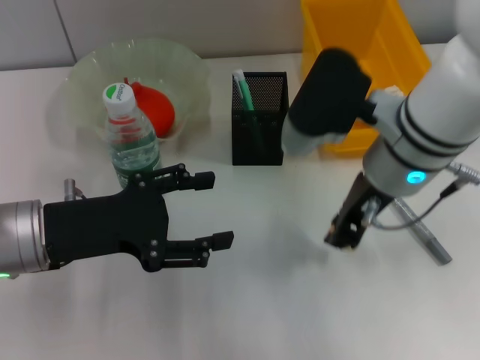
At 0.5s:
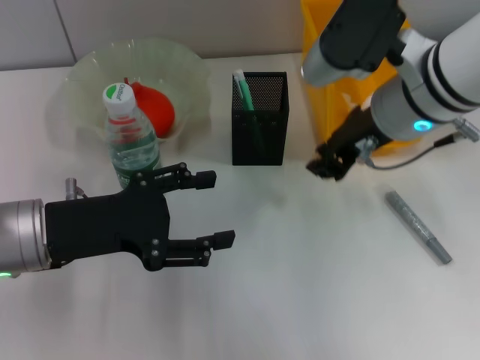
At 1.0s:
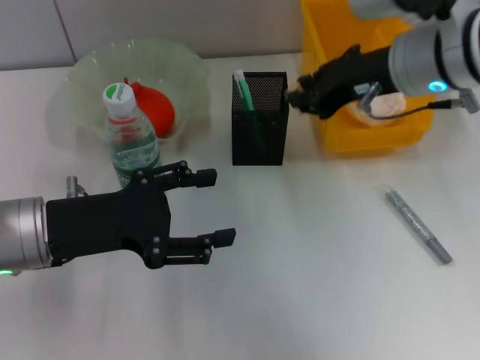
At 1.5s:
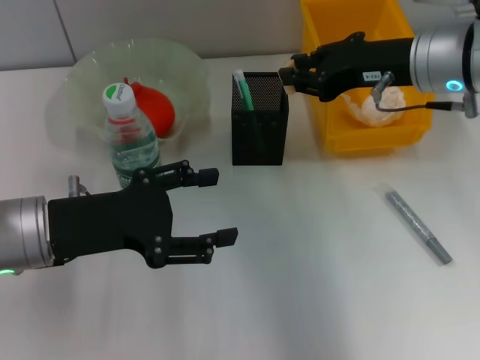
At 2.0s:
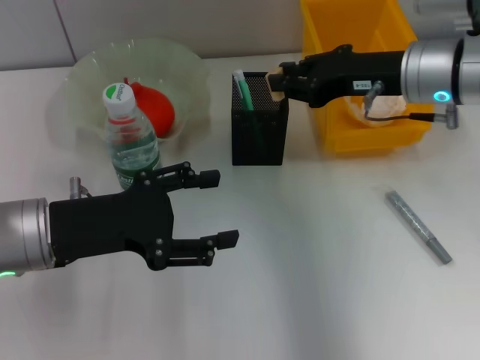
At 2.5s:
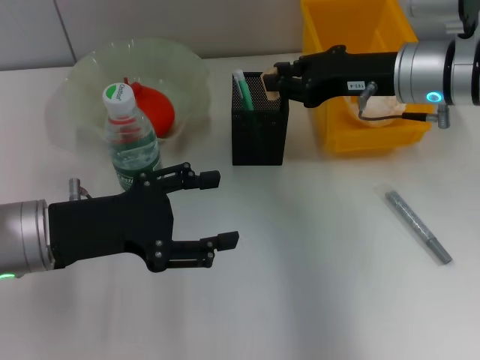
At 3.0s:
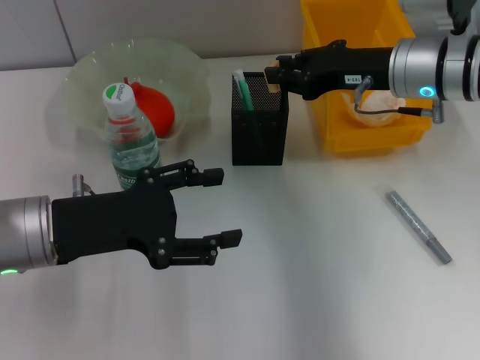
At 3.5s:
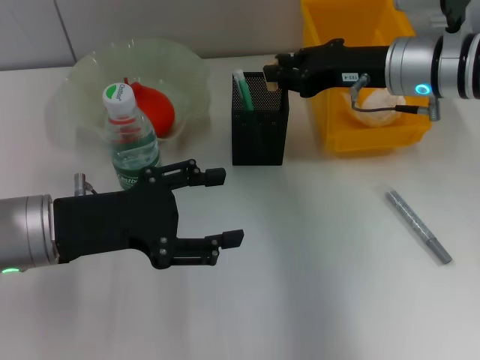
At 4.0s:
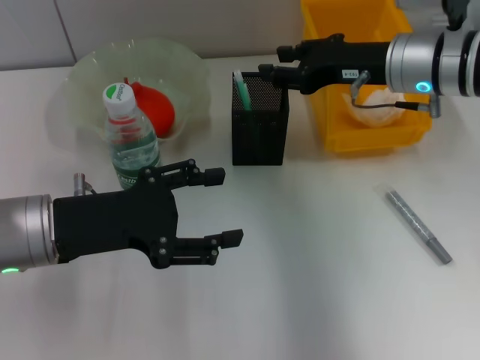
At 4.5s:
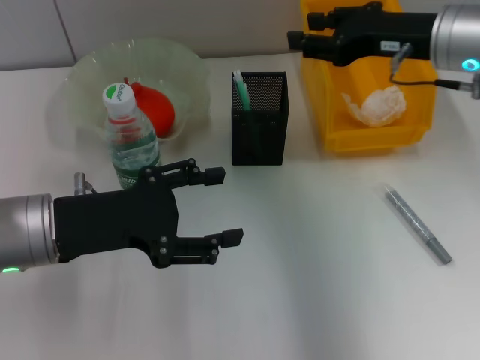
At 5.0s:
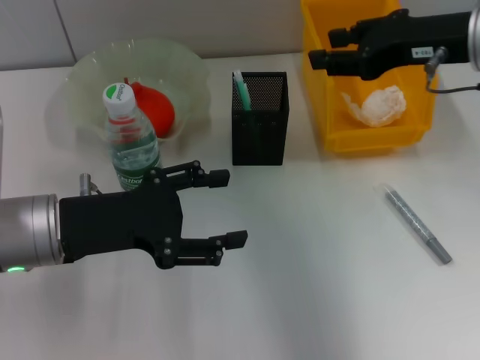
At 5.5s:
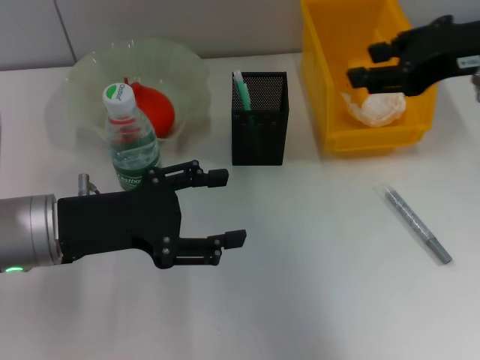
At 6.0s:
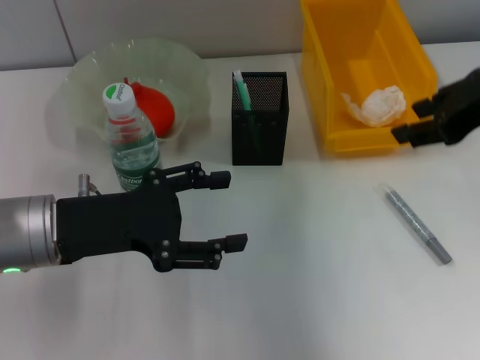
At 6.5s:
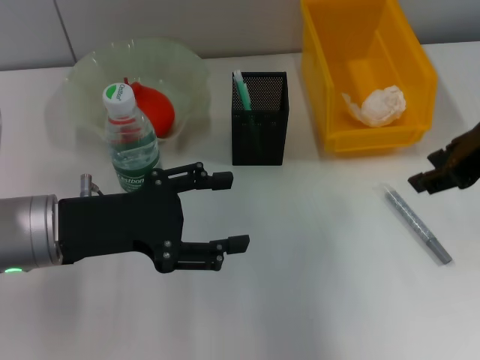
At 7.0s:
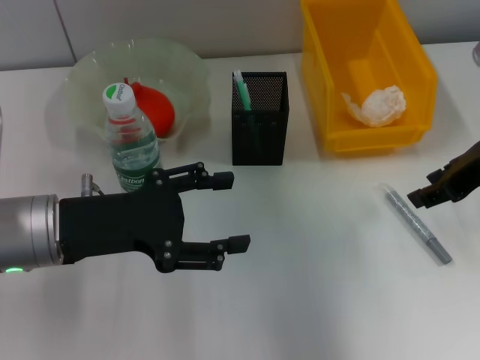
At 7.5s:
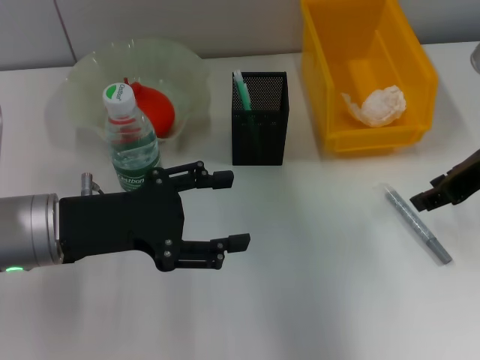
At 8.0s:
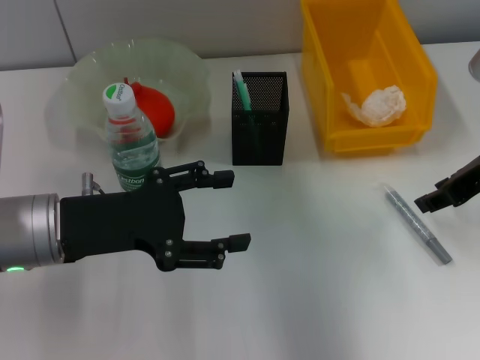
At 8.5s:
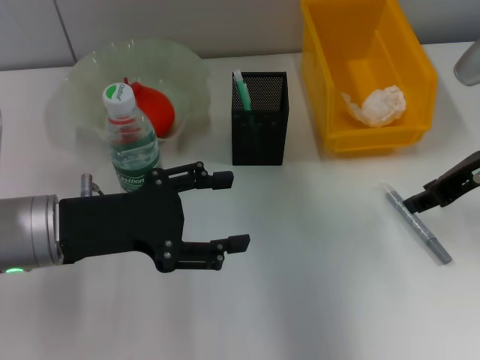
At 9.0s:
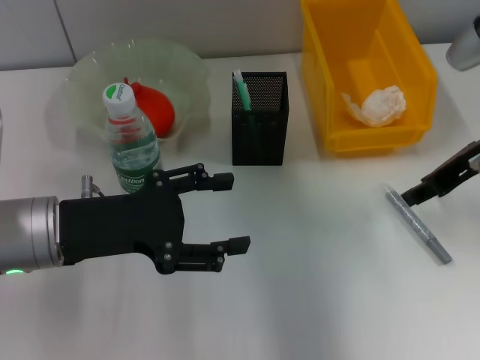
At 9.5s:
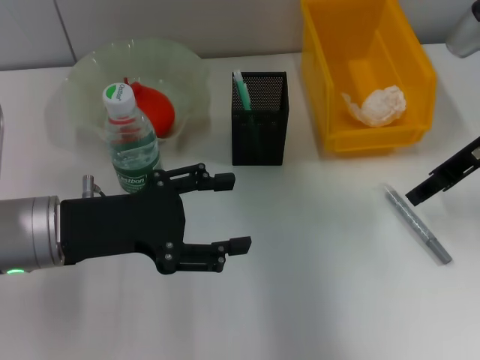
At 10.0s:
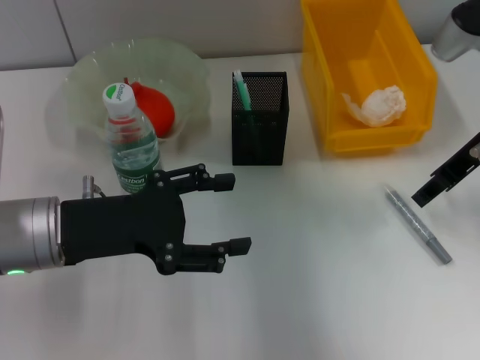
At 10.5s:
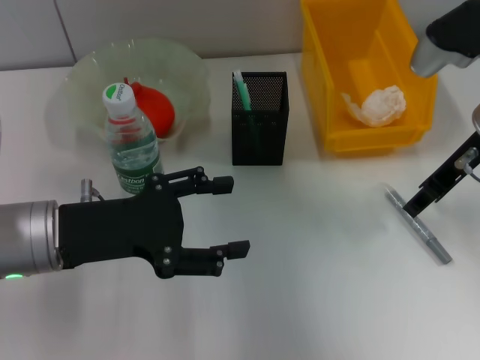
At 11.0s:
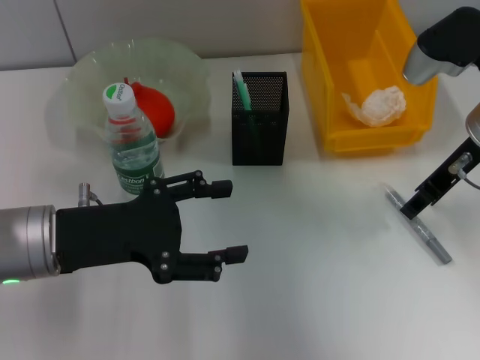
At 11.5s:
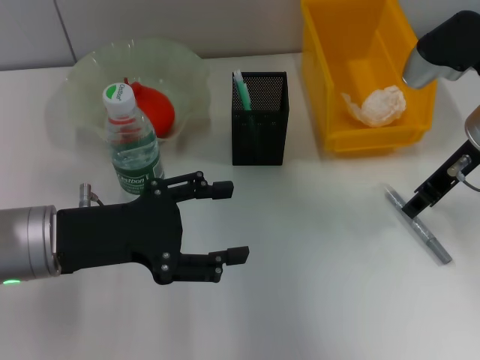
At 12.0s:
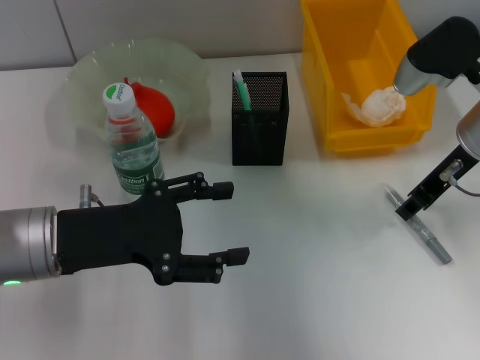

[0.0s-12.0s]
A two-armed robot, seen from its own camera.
Step, 0.0s to 3.5s: Put the eraser into the pen holder with the right hand.
0.0s to 2.0s: The right gripper moves to the right and forward, roughly 10 cm.
2.0s to 4.0s: There are only small adjustments of the grippers.
4.0s to 6.0s: The right gripper moves backward, upward and to the right, some 15 cm.
6.0s to 8.0s: The right gripper moves downward, approximately 10 cm.
8.0s to 12.0s: There are only small adjustments of the grippers.

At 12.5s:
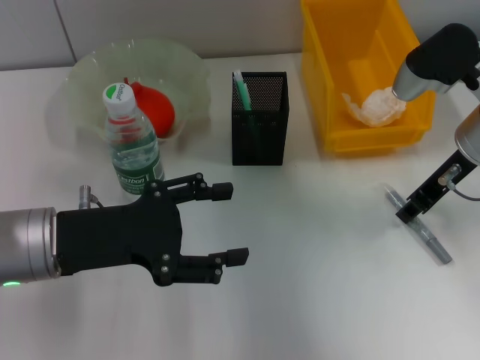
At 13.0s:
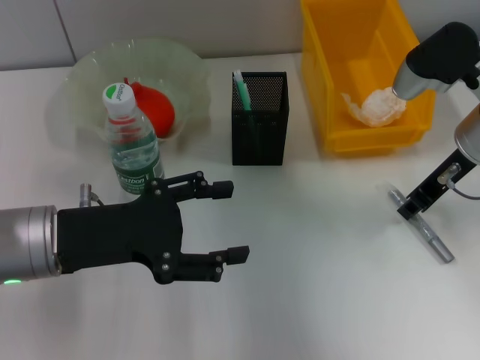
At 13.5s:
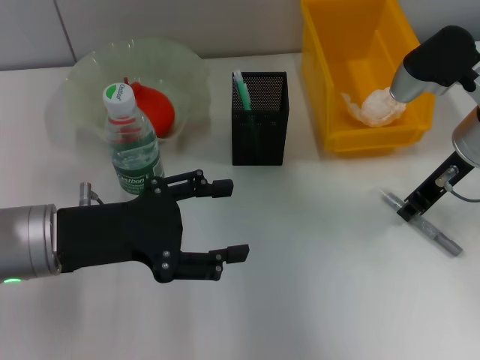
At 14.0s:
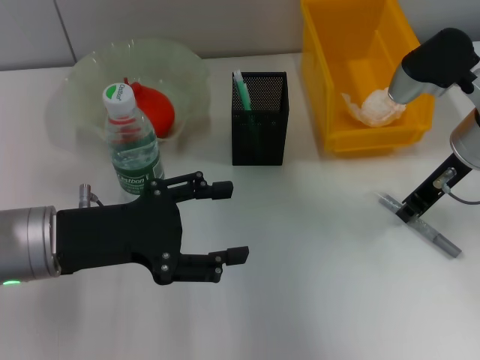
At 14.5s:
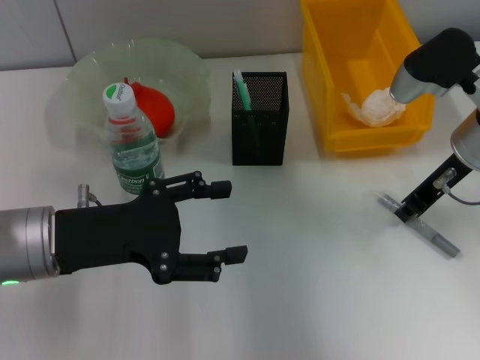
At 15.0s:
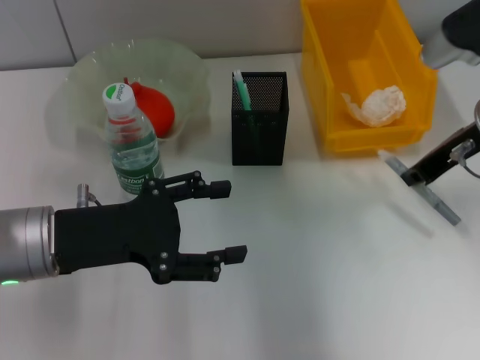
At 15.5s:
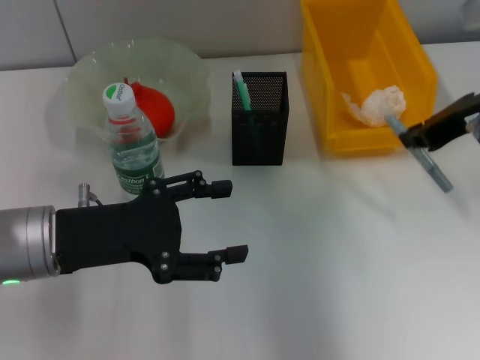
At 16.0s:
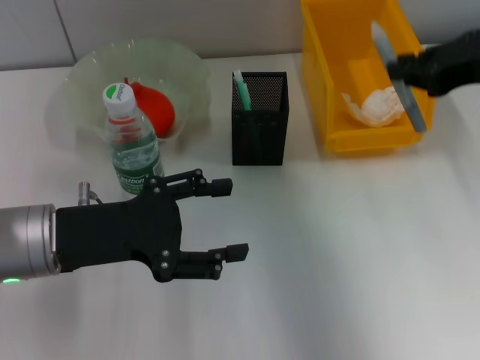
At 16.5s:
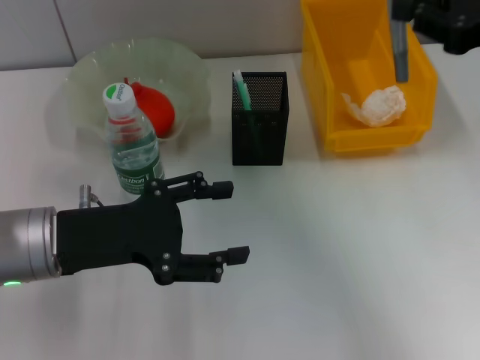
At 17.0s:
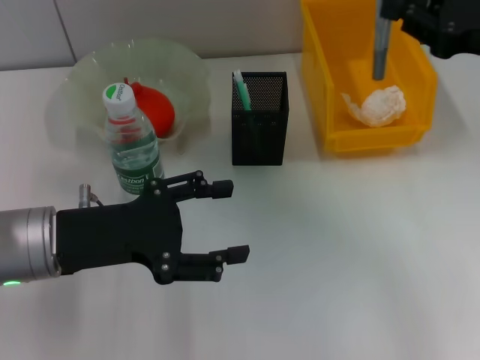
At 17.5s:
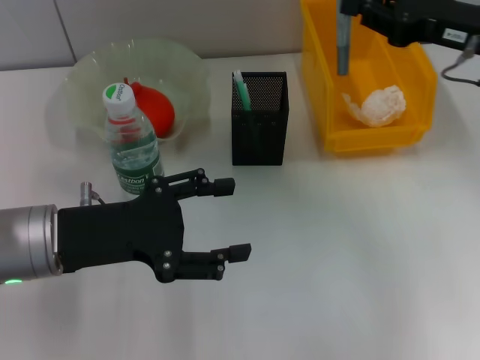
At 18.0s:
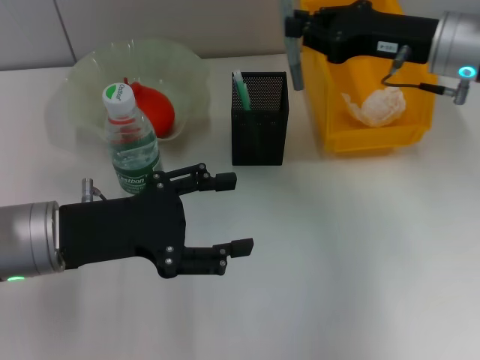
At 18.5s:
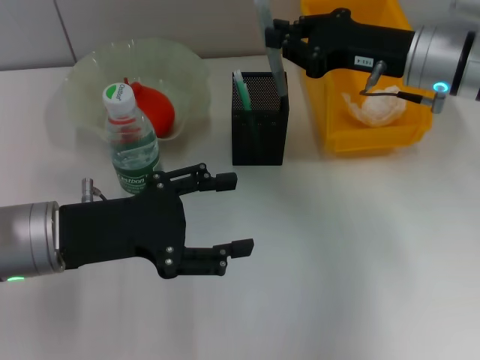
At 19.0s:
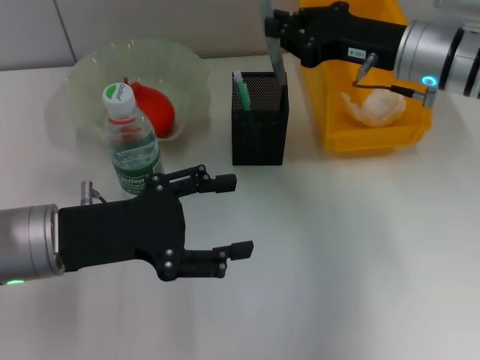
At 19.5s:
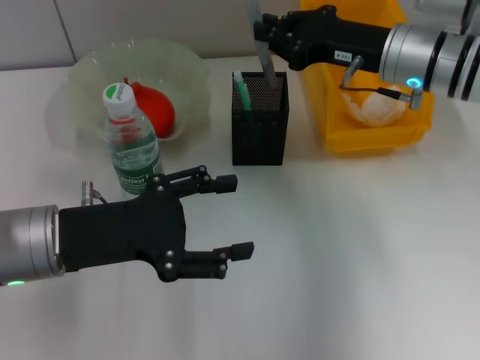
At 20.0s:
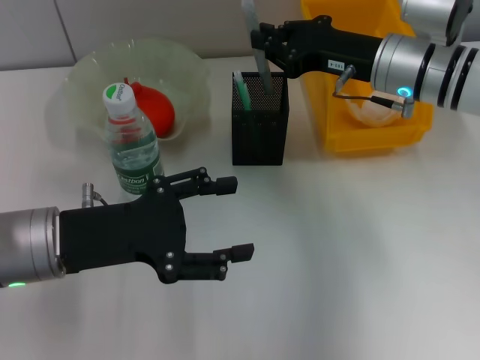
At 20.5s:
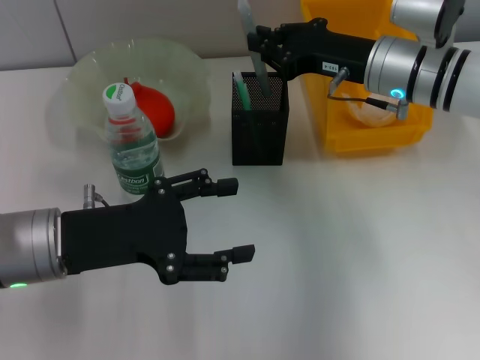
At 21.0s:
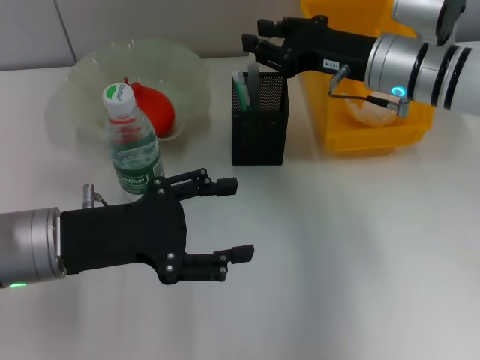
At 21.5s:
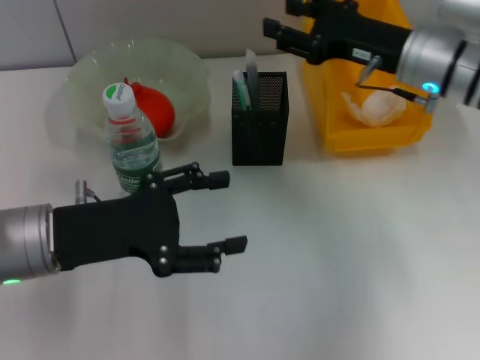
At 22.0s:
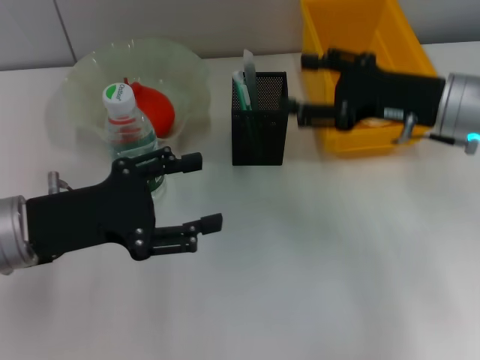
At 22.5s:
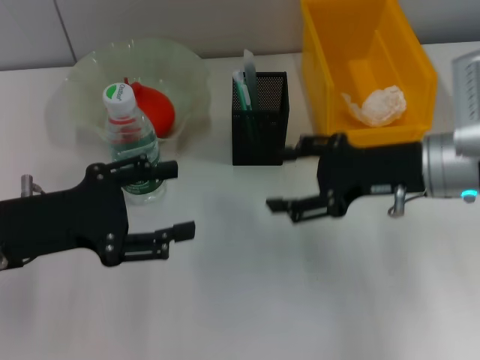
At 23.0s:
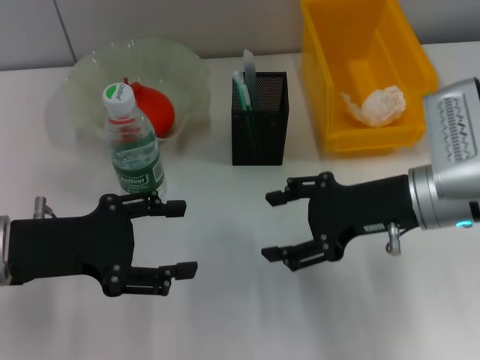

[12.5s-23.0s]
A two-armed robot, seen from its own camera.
Step, 14.5s to 21.0s: Place the gray glue into the pen holder with the right hand.
12.5s to 14.5s: The right gripper closes.
14.5s to 16.5s: The right gripper shifts approximately 15 cm upward, backward and to the right.
16.5s to 19.0s: The right gripper travels forward, to the left and downward by some 15 cm.
19.0s to 21.0s: The grippers stay close to where they were, moving slightly.
21.0s to 23.0s: The right gripper goes approximately 10 cm backward, and opens its fingers.
